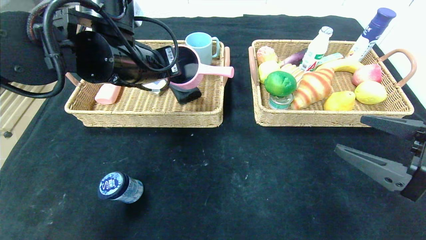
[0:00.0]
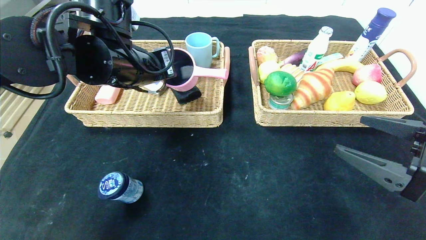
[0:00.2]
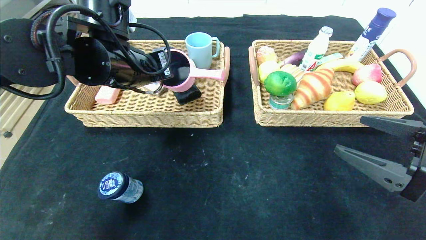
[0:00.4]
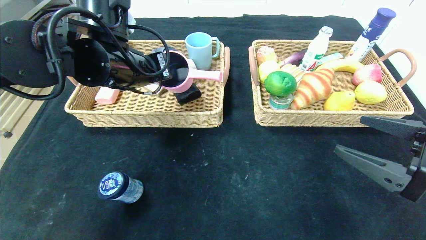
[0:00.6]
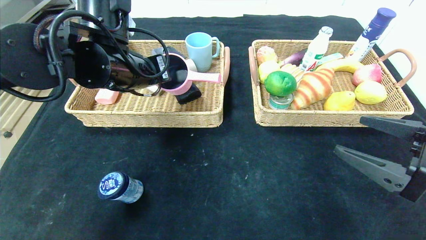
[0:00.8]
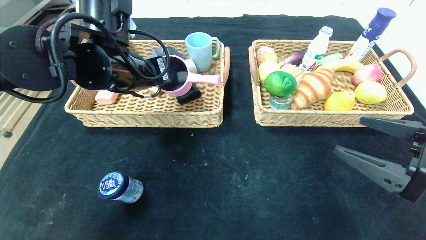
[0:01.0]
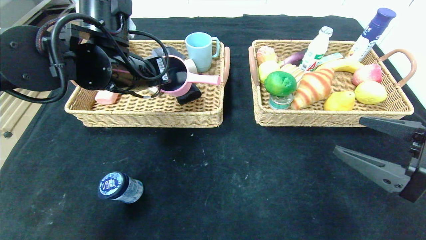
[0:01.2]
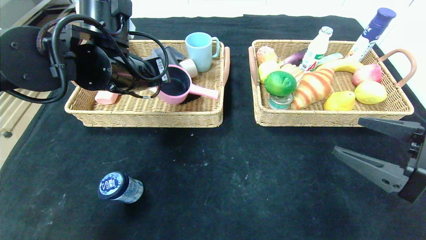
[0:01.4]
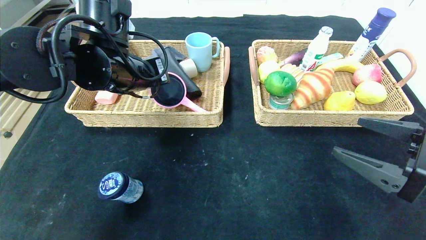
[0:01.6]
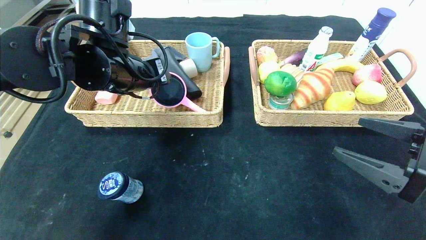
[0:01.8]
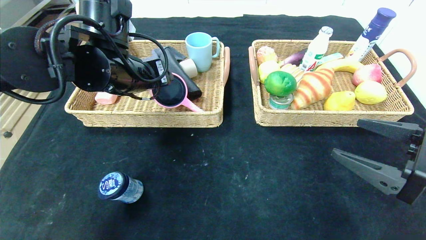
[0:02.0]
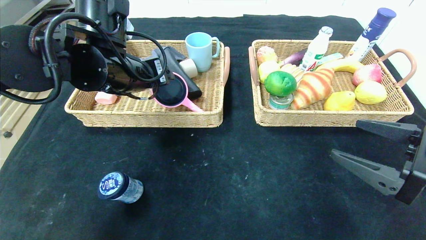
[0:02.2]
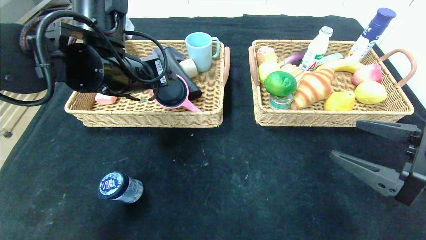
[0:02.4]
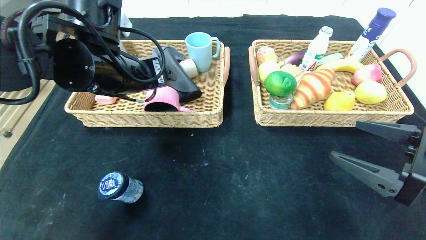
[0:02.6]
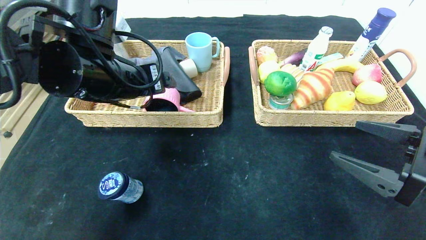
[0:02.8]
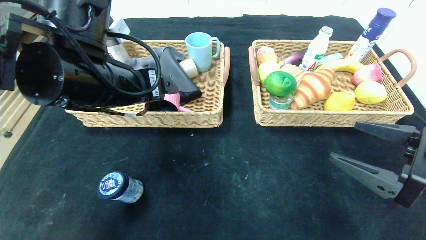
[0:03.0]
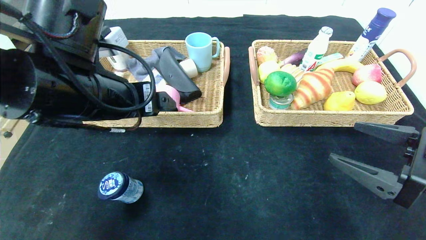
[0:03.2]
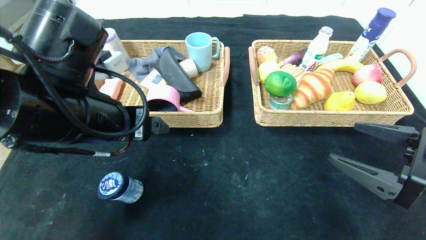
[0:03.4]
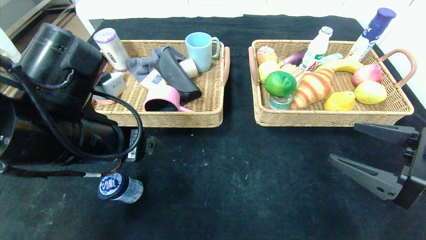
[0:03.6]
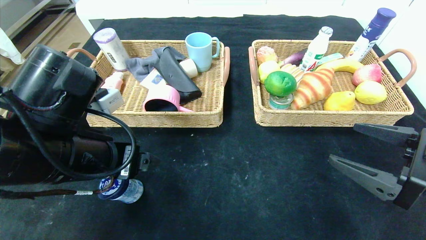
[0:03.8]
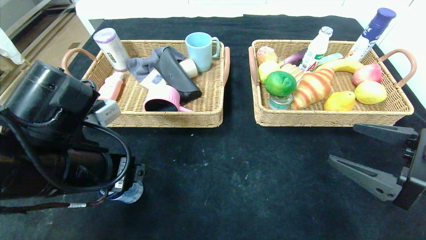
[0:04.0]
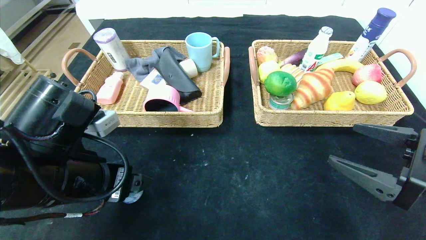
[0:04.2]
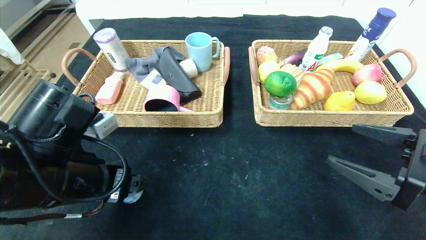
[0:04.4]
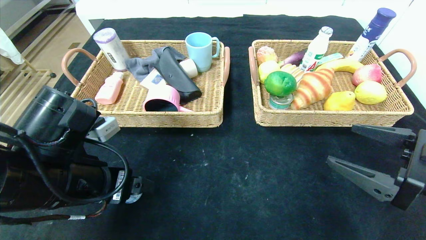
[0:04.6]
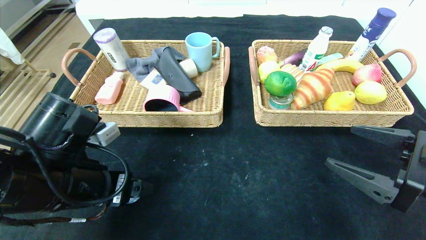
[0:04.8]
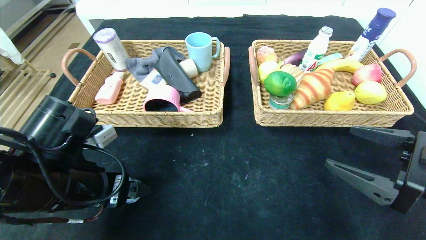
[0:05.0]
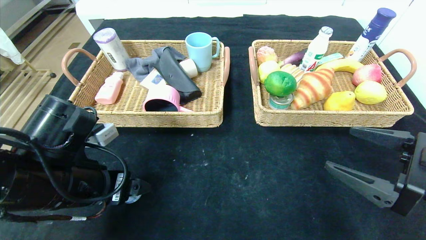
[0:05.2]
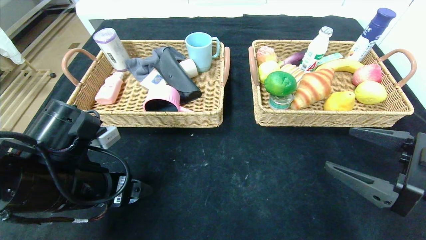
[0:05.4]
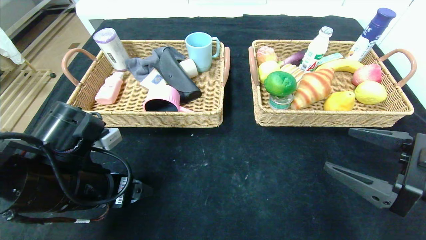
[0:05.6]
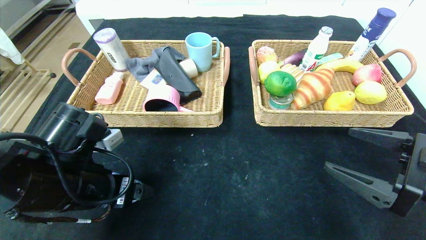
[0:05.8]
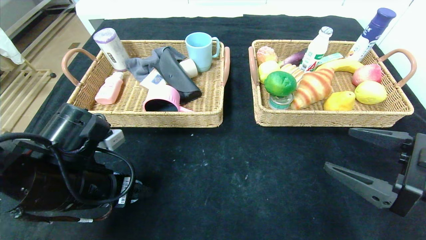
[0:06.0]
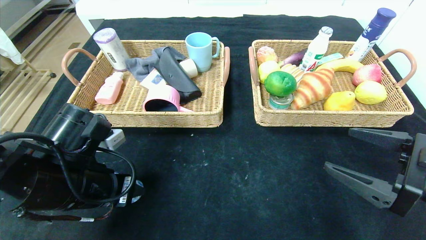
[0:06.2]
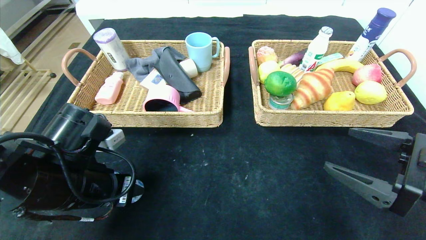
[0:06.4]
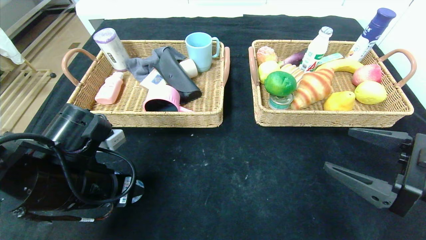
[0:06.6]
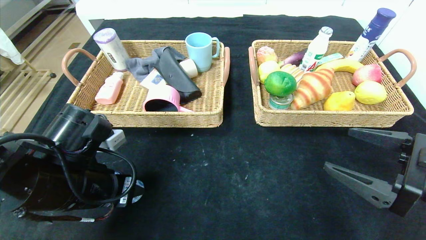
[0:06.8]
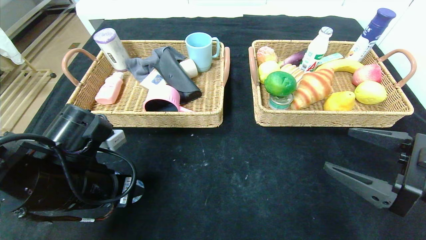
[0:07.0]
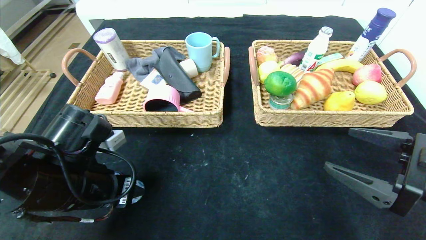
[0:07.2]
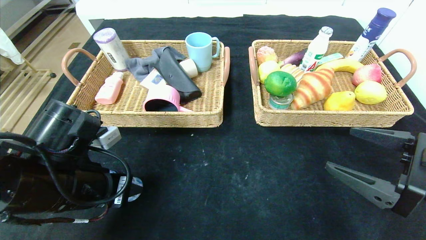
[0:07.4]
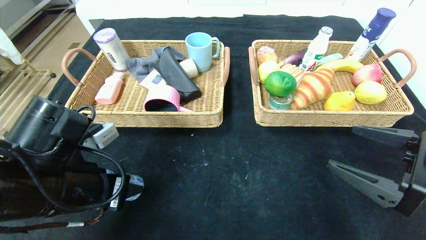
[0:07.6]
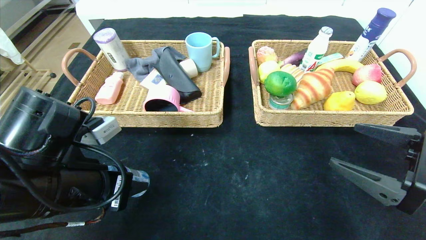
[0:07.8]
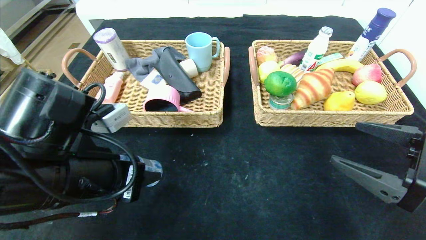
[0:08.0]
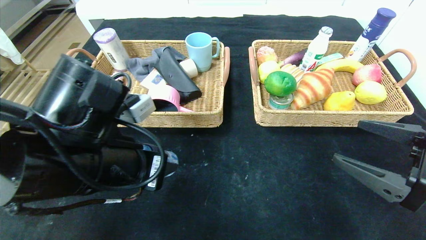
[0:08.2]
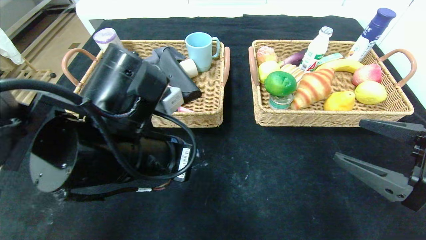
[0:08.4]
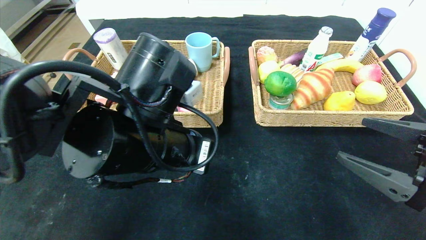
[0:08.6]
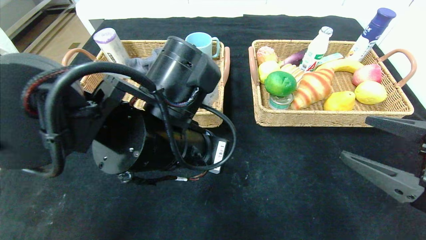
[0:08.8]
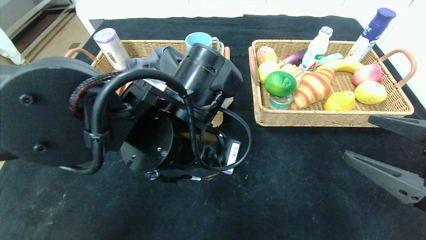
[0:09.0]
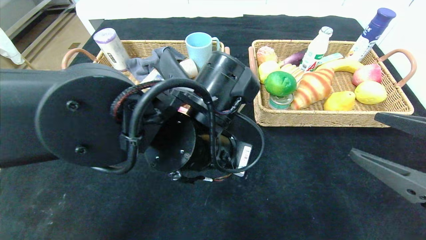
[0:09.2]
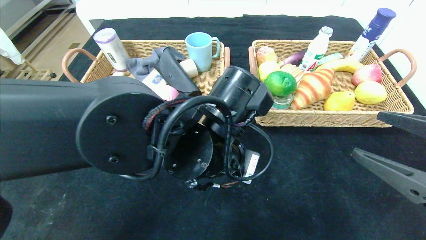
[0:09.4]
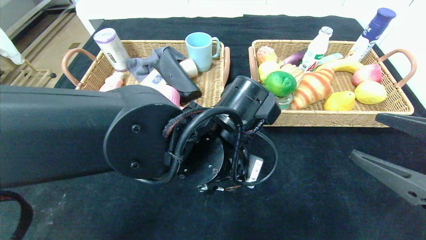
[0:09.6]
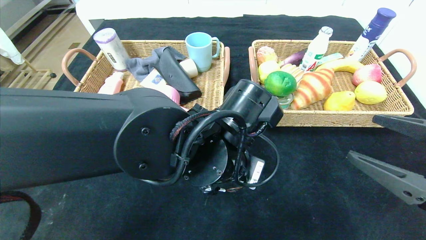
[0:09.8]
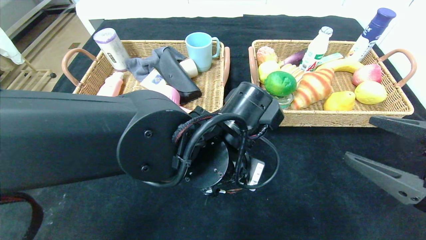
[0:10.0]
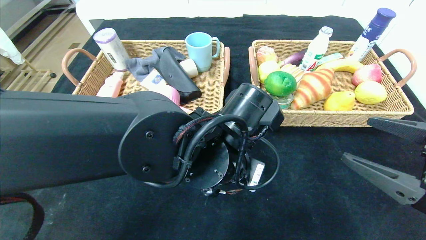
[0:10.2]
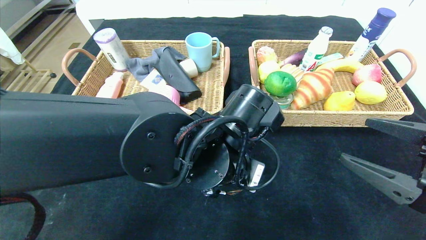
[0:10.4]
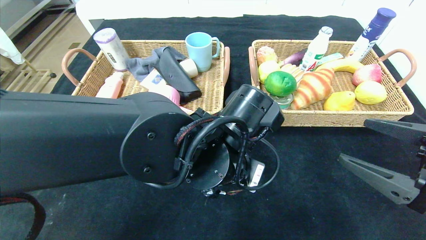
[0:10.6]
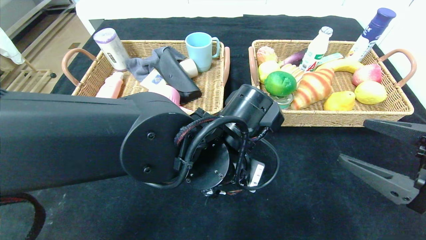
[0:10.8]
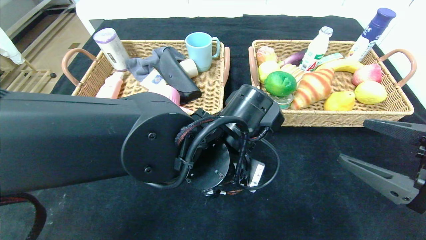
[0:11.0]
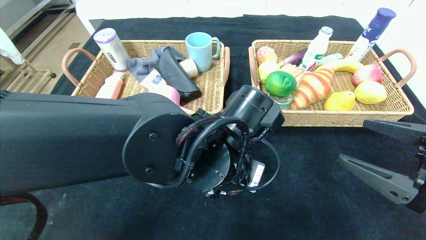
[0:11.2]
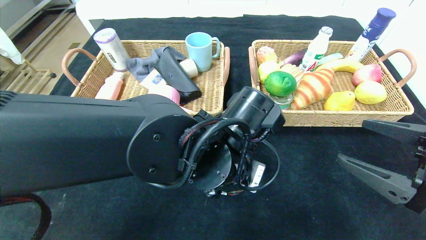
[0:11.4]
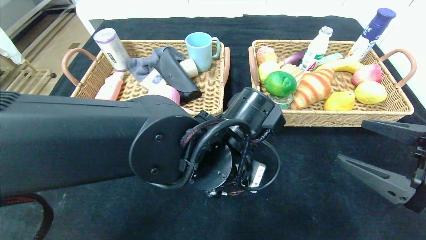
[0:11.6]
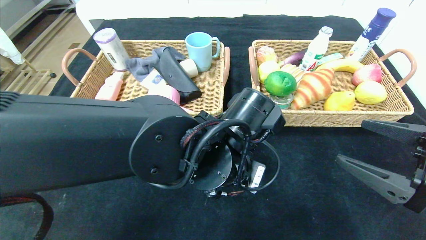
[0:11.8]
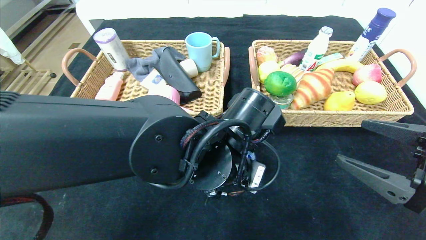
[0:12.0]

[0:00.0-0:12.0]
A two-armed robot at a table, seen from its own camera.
Step, 0:00.0 to 0:02.4: Grasp the pink pot and put it in the left basket.
0:00.0 to 0:01.6: The left gripper opens.
0:01.6 to 0:03.0: The left gripper moves backward, approximately 5 cm, and opens up.
0:03.0 to 0:04.4: The left gripper travels downward and backward by some 10 cm.
0:04.4 to 0:07.6: There are only small adjustments of the grippers.
0:07.6 to 0:09.0: The left gripper moves to the right, roughly 15 cm.
0:09.0 to 0:10.4: The left gripper moves some 5 cm.
0:10.4 to 0:12.0: Both grippers stay about where they are.

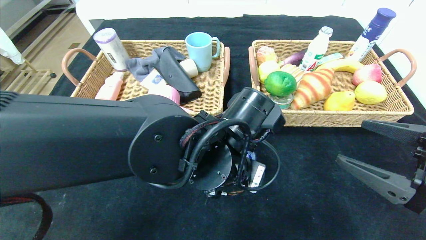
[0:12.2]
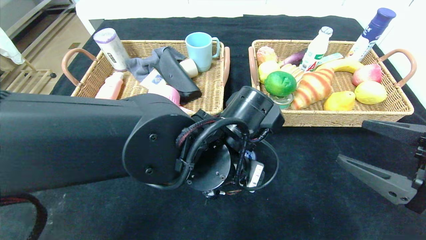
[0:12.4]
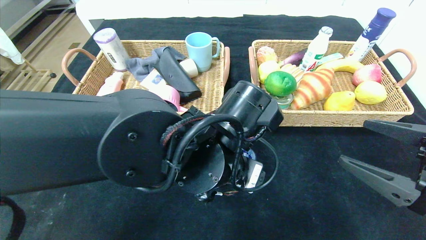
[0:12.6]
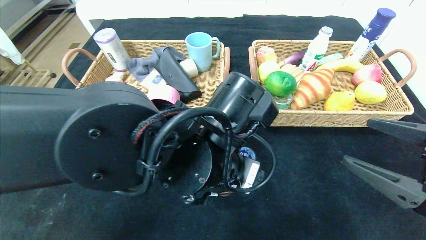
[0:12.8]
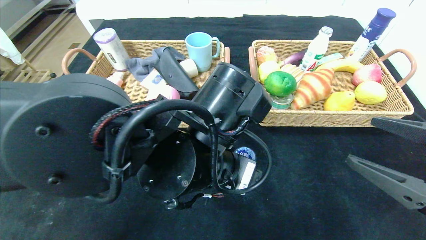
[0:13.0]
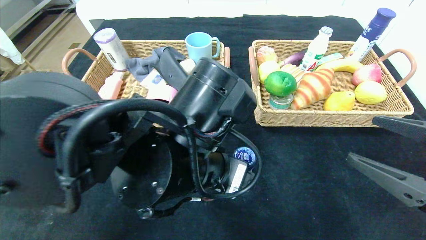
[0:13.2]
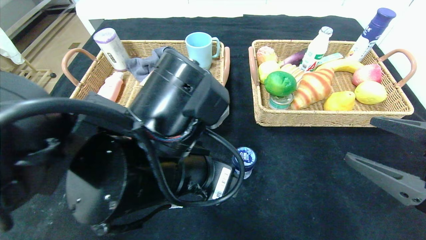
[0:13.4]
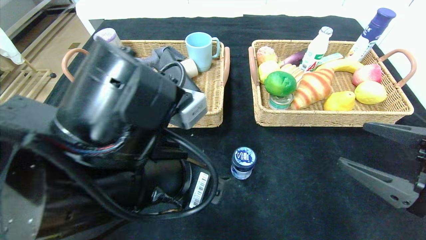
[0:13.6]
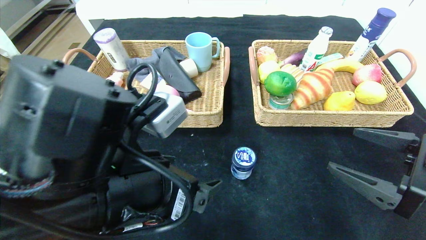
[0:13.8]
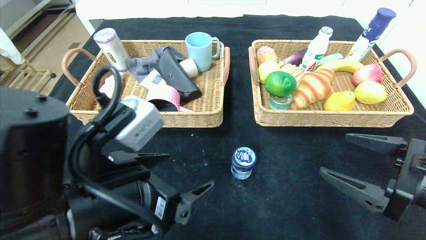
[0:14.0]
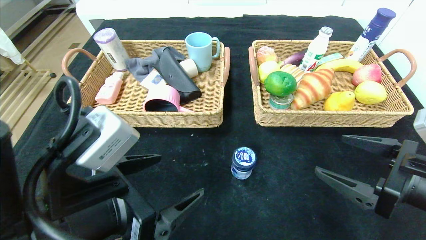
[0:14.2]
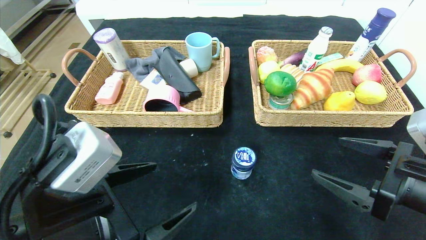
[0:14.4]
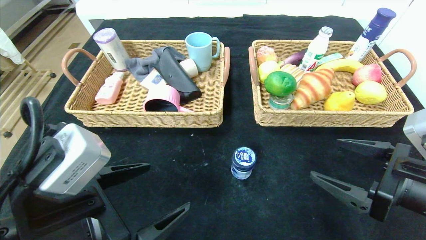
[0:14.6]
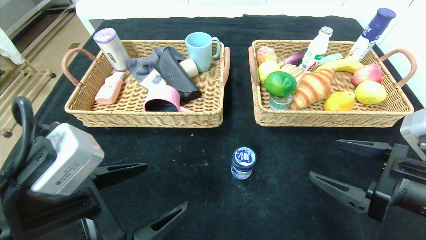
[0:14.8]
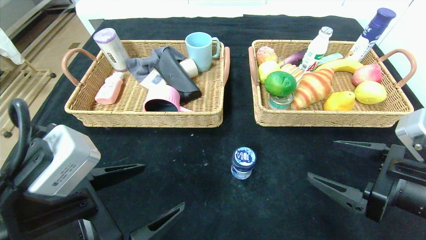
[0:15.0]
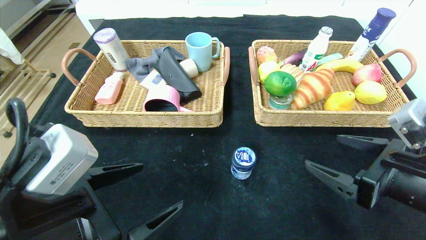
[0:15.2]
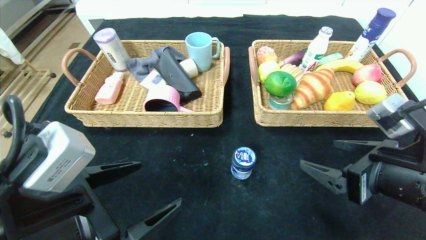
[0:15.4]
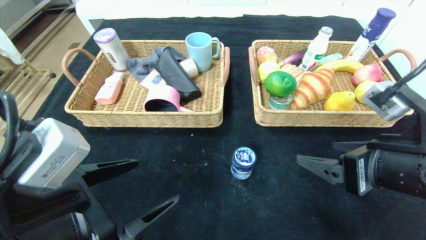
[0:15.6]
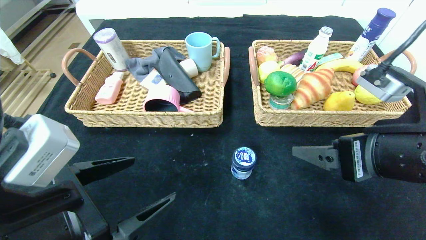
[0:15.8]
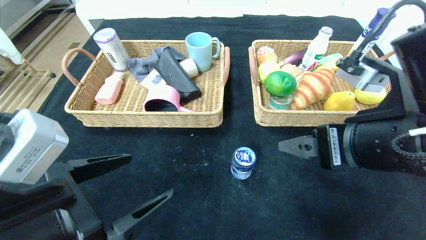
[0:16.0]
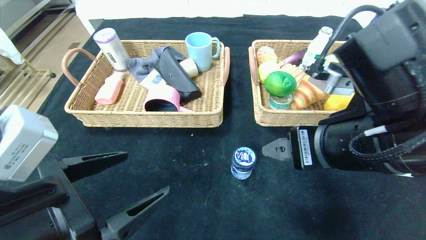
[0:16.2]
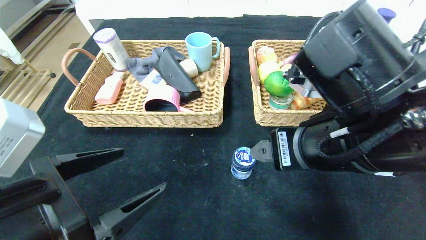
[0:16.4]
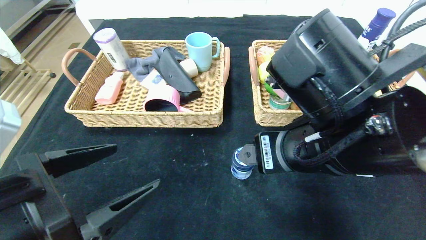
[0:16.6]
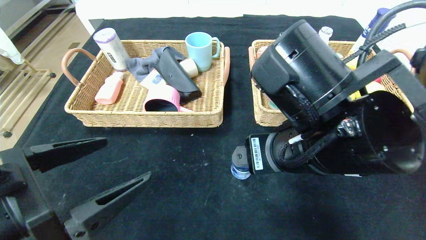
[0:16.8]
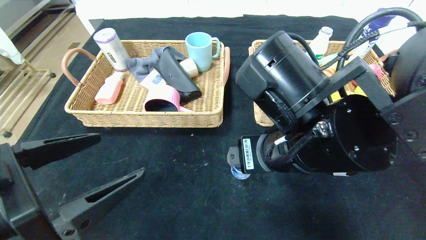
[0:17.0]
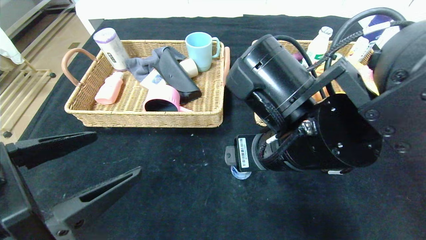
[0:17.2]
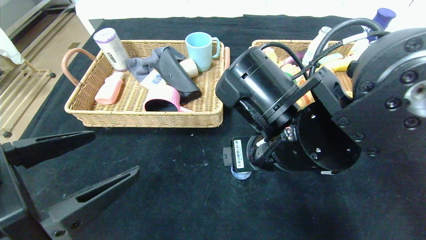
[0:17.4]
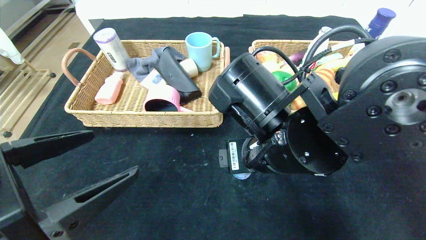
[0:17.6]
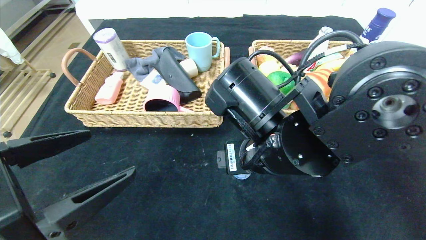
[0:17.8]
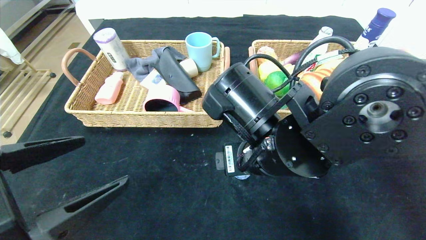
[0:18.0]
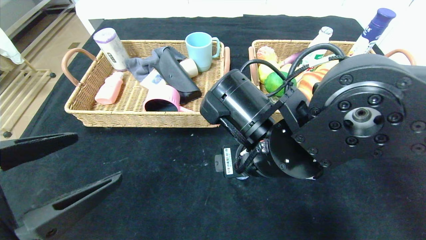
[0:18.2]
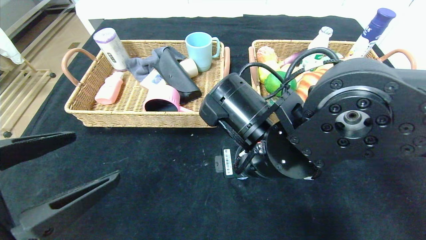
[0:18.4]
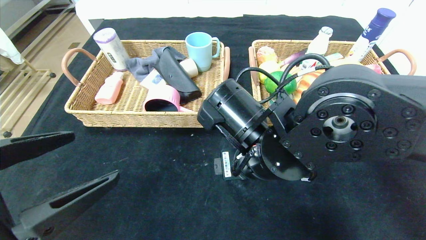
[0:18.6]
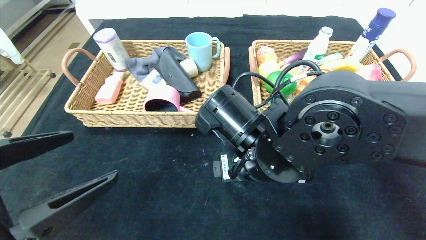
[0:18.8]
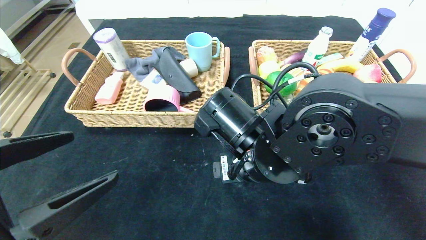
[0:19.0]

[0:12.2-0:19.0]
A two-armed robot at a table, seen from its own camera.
0:12.2 to 0:13.6: The left gripper shifts approximately 10 cm to the left and backward.
0:13.6 to 0:15.0: The left gripper heads to the left, covering about 10 cm.
0:15.0 to 0:16.2: The right gripper is displaced to the left and upward by approximately 15 cm.
0:16.2 to 0:17.6: The right gripper is displaced to the left by approximately 10 cm.
